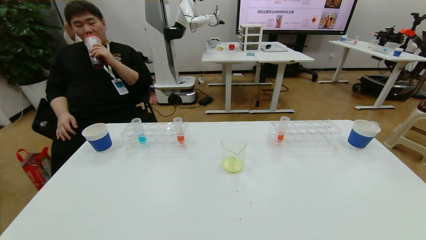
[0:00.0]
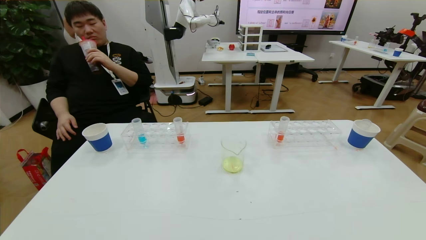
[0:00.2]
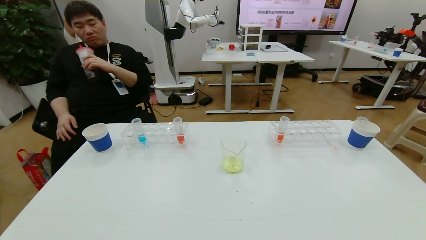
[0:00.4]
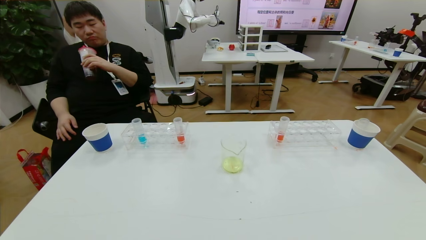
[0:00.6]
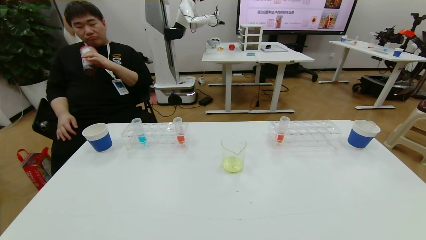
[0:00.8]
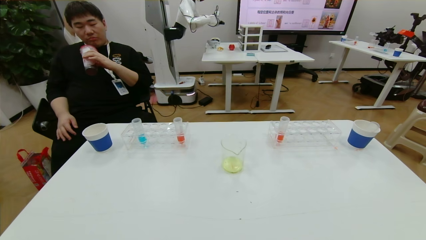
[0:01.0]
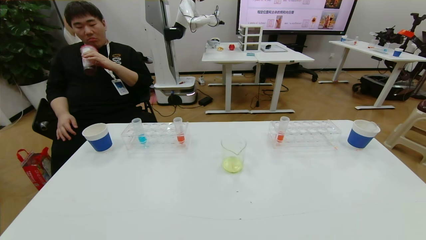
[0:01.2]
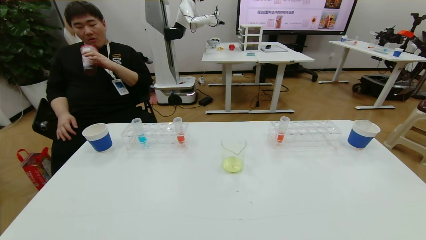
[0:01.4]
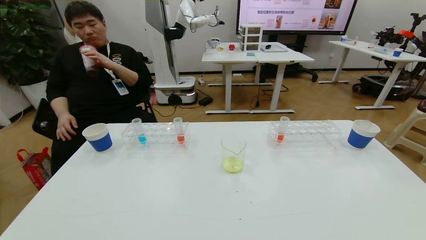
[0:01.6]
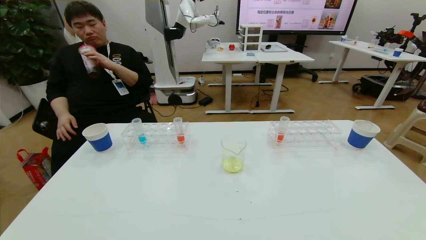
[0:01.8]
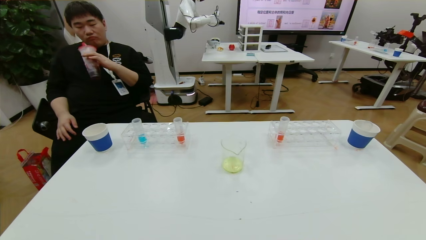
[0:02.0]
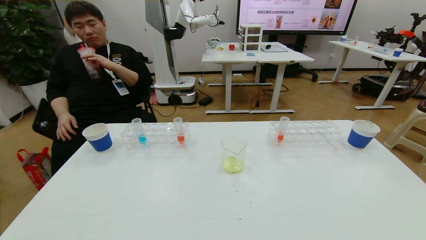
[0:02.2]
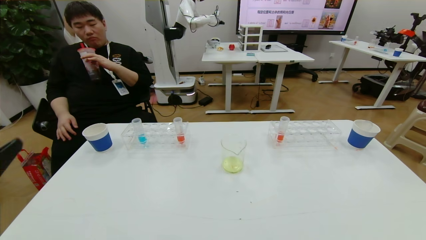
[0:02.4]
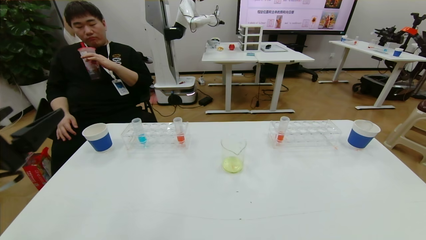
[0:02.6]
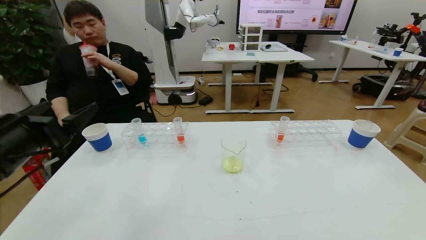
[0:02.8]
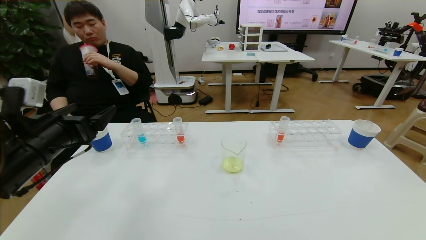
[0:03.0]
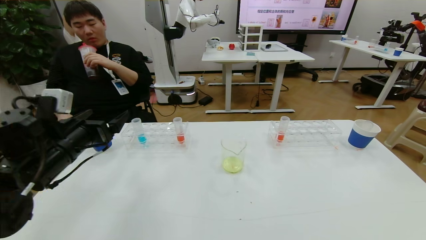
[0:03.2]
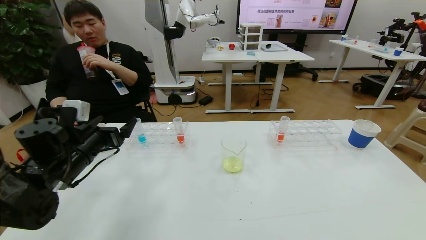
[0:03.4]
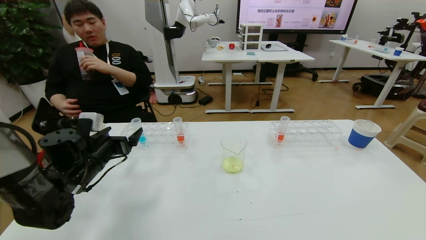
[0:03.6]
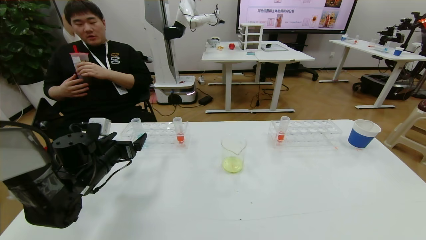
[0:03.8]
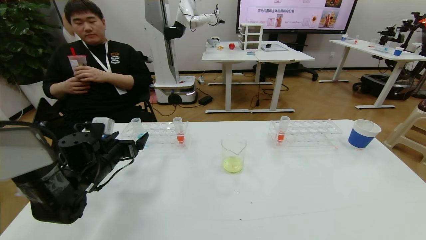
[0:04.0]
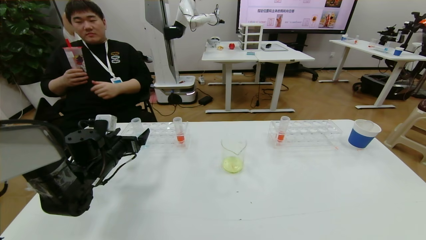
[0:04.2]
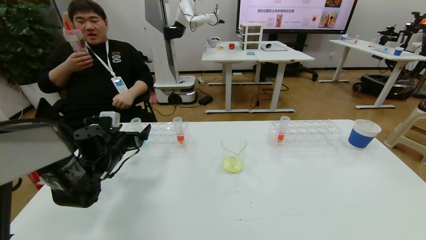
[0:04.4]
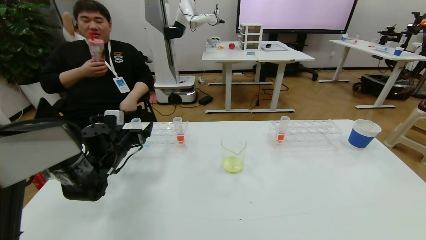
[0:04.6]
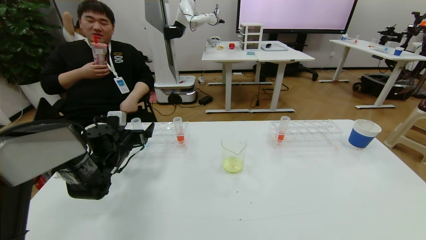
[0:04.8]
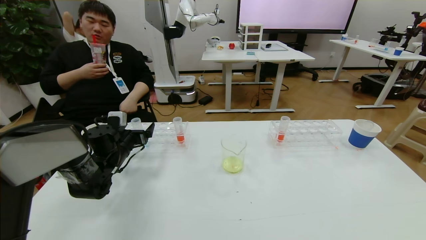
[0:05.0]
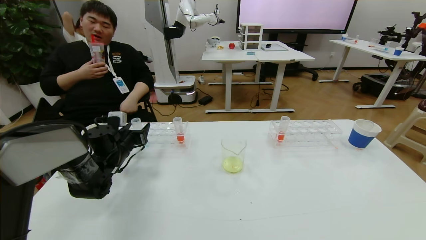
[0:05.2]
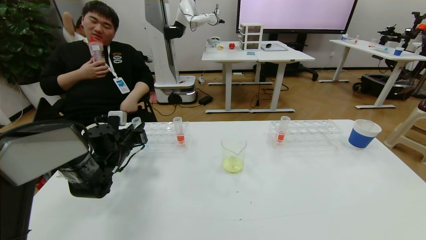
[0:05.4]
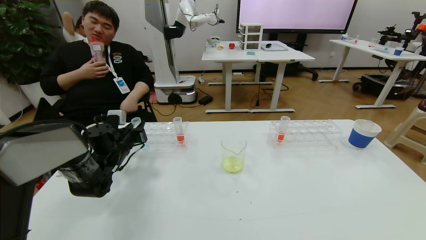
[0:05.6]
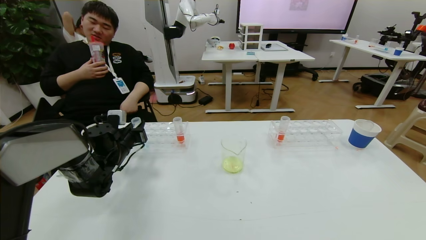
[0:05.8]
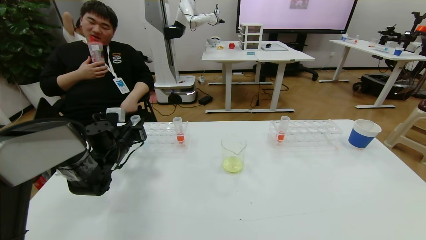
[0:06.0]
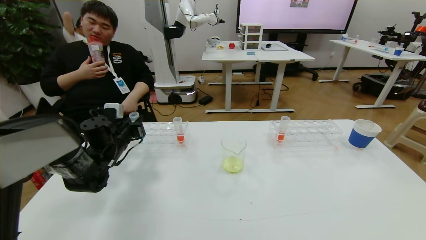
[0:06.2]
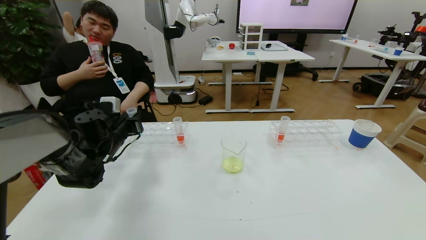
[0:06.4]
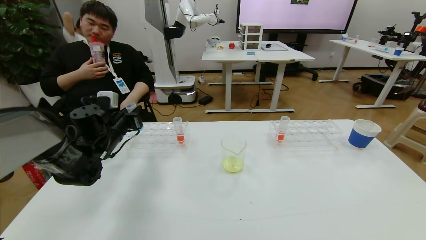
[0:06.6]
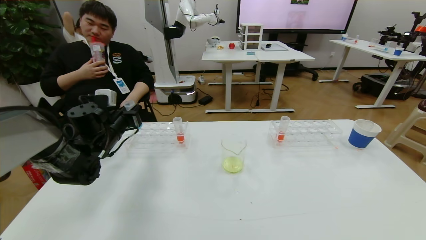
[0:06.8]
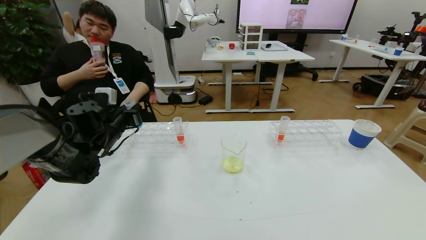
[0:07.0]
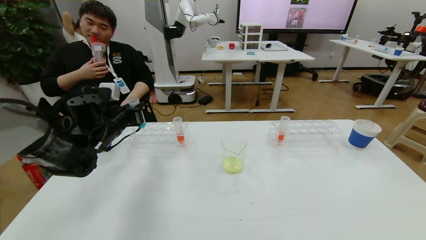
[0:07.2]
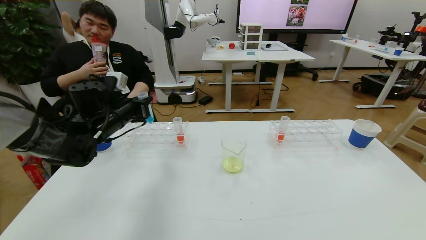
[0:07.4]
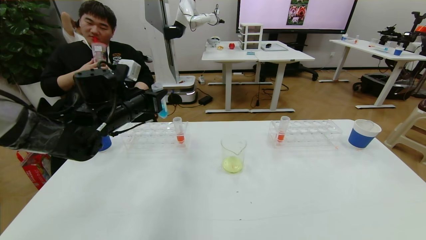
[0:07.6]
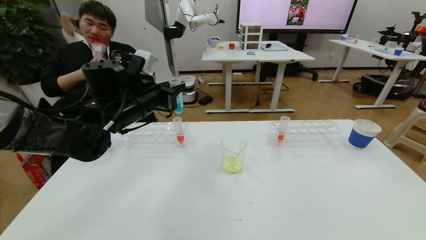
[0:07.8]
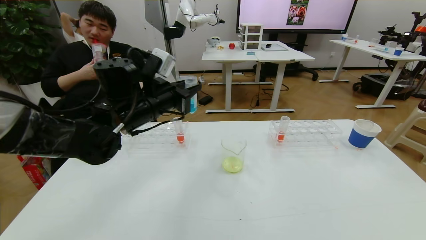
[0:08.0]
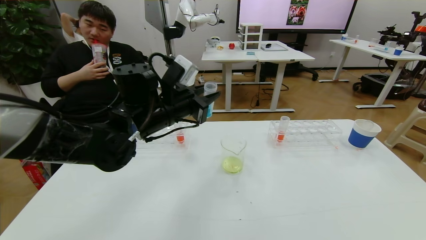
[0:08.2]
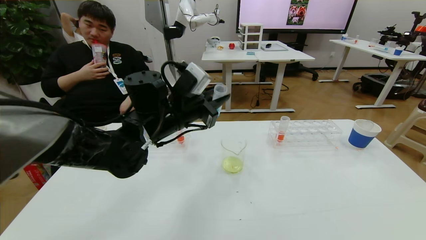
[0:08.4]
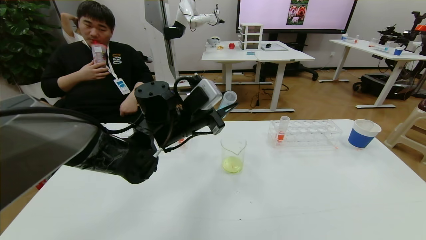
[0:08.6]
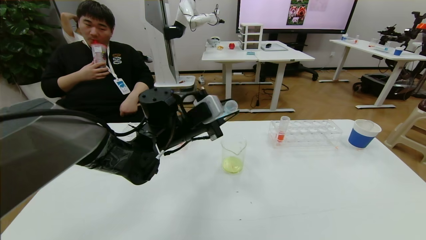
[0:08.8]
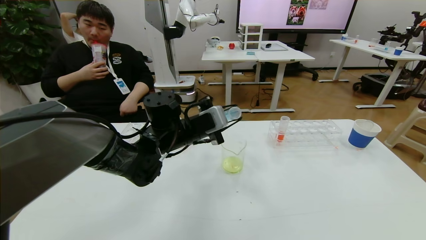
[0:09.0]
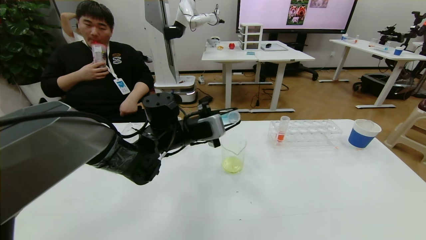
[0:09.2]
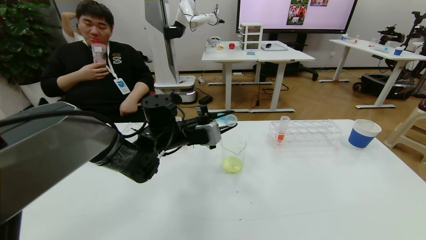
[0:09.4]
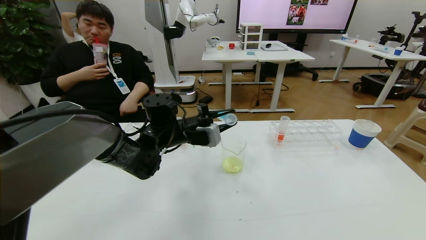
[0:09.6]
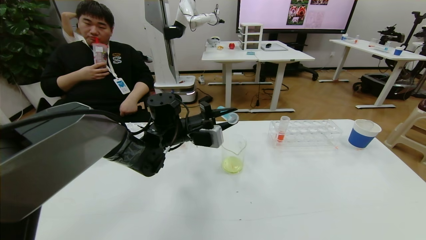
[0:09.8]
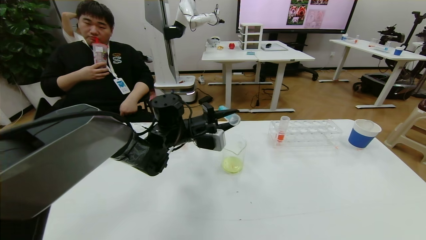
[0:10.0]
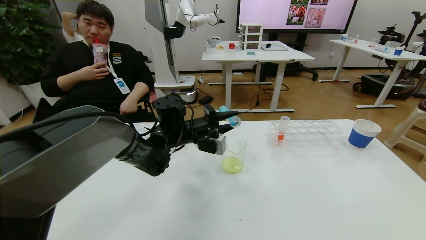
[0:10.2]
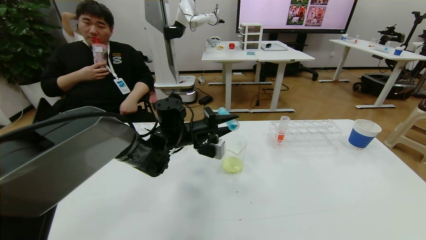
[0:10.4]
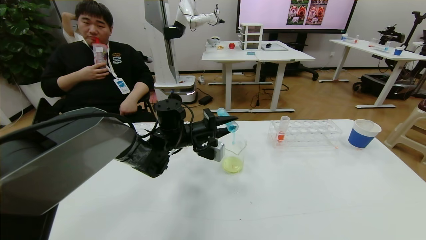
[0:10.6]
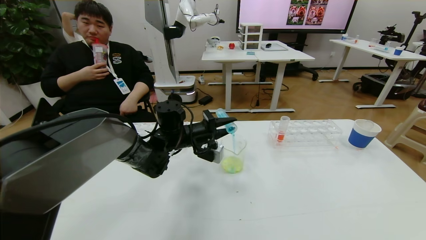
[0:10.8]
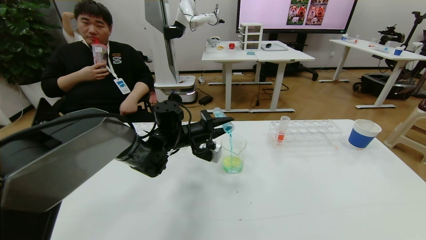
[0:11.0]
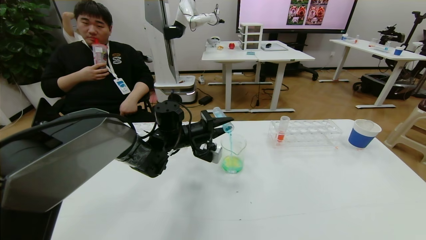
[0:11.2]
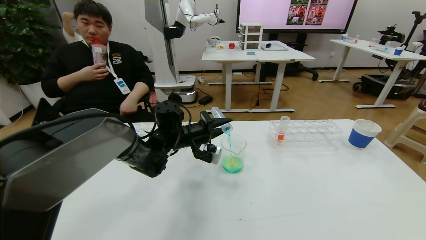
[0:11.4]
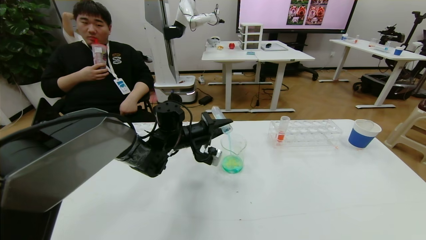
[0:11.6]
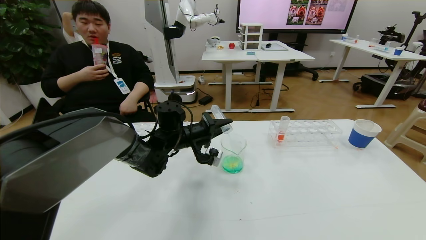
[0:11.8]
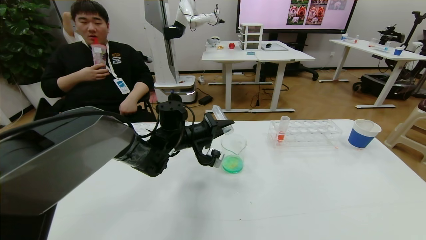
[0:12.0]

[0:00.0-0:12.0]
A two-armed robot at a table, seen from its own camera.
Task of the whole recording: pick up the test tube with yellow pigment and the test tube with blue pigment by grippers and pour them into the beaker.
Step, 0:00.0 to 0:05.8: Grasp the blue reagent with the left gripper.
0:01.6 to 0:03.0: The left gripper is displaced forward and upward by roughly 30 cm.
0:03.0 to 0:04.4: The left gripper shifts about 20 cm forward and downward.
0:04.4 to 0:06.0: The left gripper closes.
0:06.0 to 0:07.6: The left gripper heads upward and to the right, covering approximately 15 cm.
0:07.6 to 0:09.0: The left gripper shifts some 15 cm to the right.
0:09.0 to 0:10.4: The left gripper ends up some 5 cm from where it was.

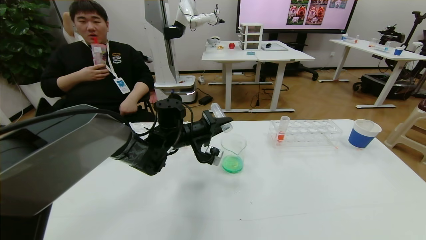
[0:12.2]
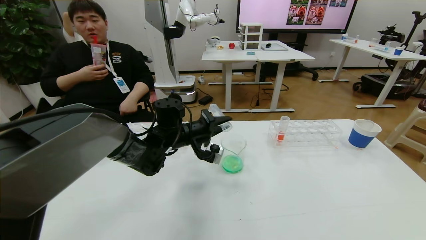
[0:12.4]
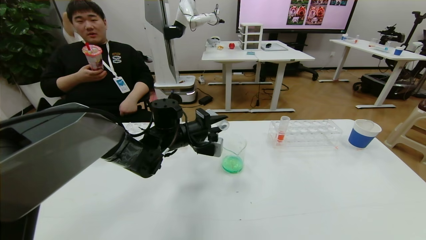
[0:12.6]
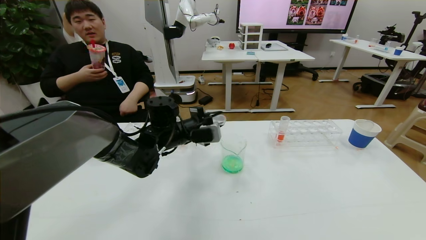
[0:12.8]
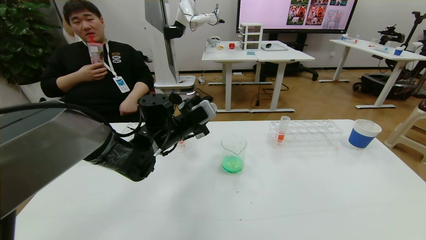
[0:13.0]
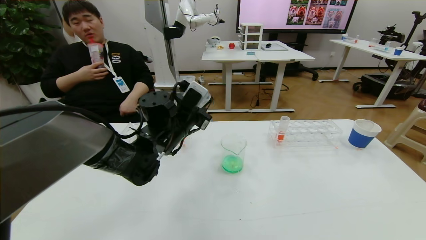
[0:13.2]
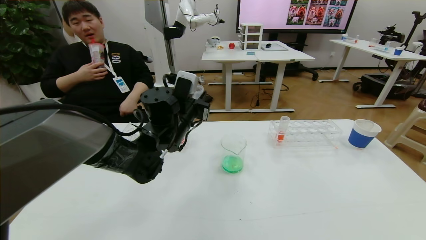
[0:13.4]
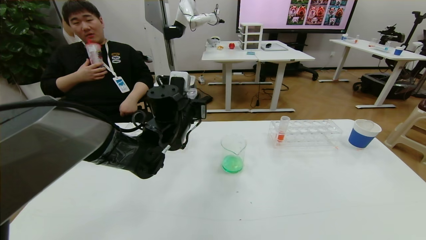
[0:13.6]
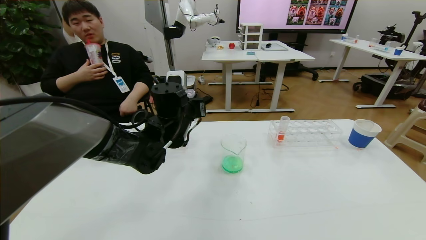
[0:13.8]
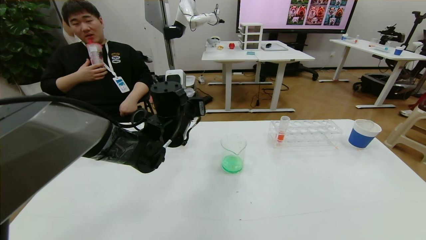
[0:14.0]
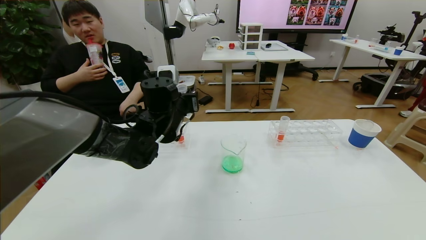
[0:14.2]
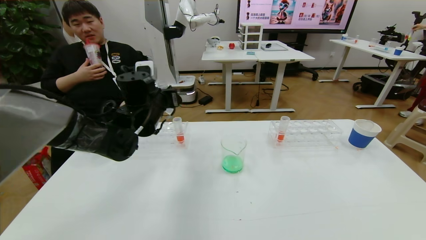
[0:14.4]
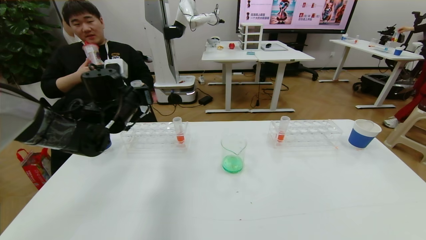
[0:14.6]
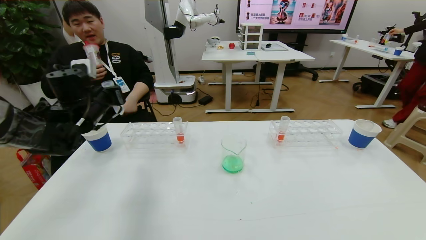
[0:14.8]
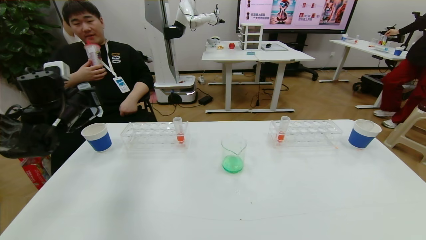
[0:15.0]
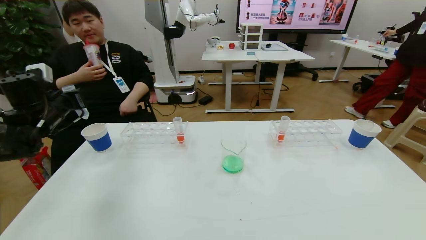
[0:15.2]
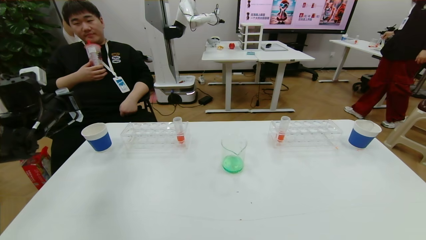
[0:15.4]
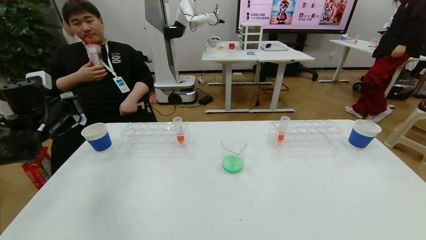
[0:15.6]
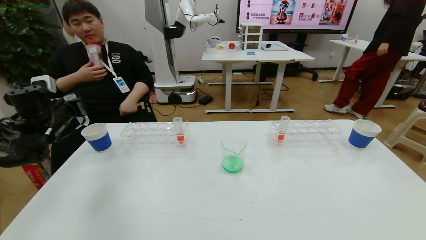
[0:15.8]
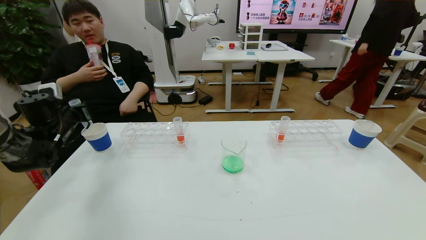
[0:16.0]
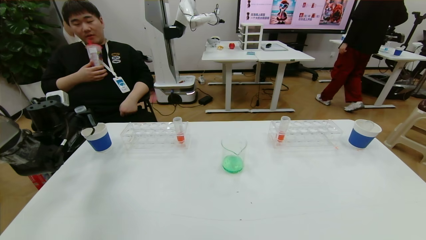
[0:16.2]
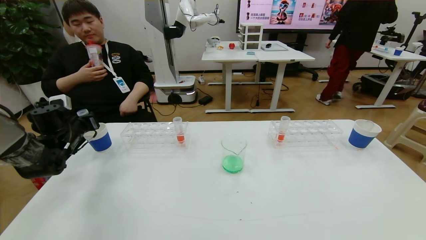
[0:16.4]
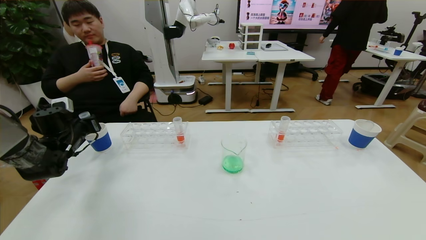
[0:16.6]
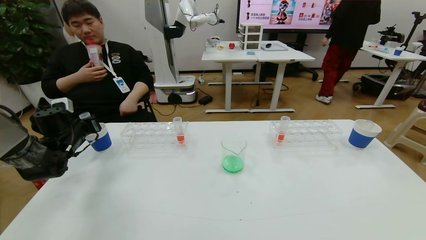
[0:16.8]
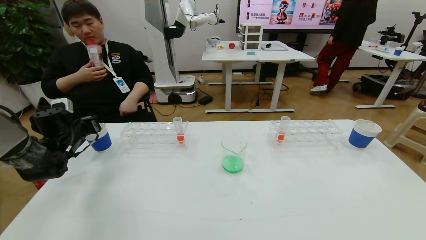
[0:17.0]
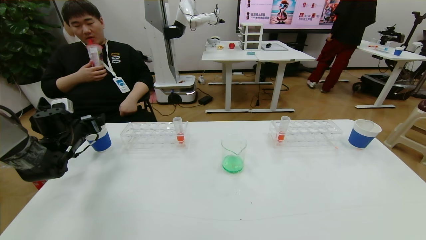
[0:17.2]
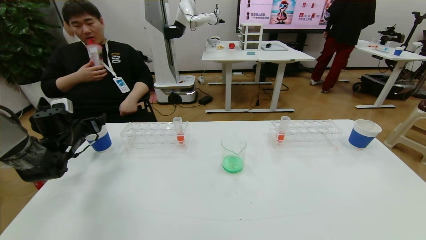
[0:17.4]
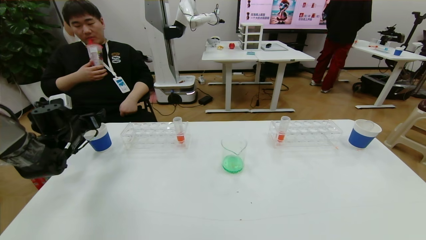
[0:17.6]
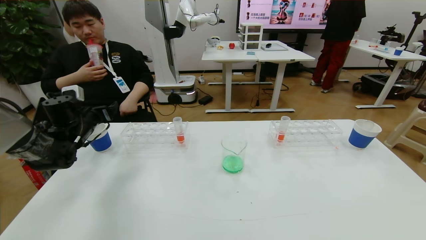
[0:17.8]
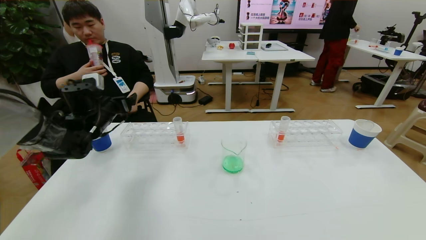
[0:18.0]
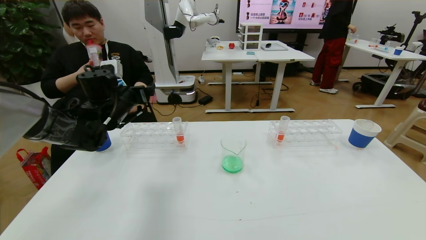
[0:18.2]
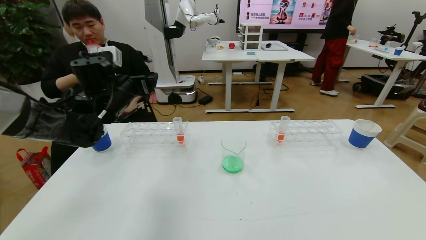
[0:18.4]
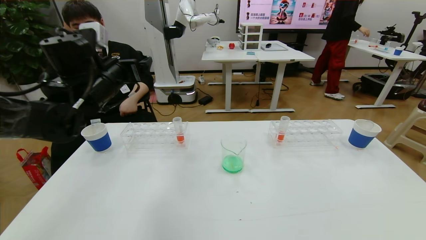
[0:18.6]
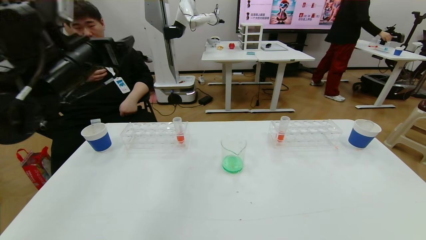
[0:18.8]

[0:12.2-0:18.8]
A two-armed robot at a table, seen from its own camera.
Task of the whole recording: pick up the test tube with yellow pigment and the test tube with blue pigment by grippers and pour them into the beaker.
Step, 0:12.8 to 0:18.0: Place the test tube into the paper cup with the left gripper.
0:12.2 to 0:13.8: The left gripper moves upward, approximately 5 cm.
0:13.8 to 0:15.4: The left gripper moves to the left, roughly 30 cm.
0:15.4 to 0:17.2: The left gripper heads downward, covering some 10 cm, and opens up.
0:17.2 to 0:18.8: The left gripper moves upward, to the right and backward, roughly 30 cm.
